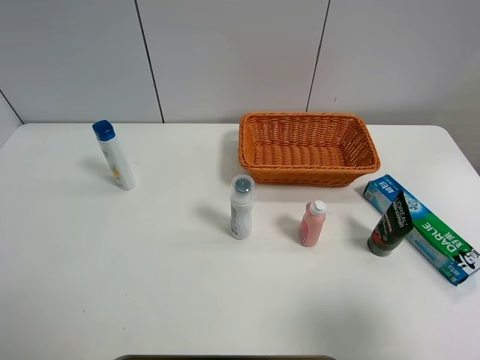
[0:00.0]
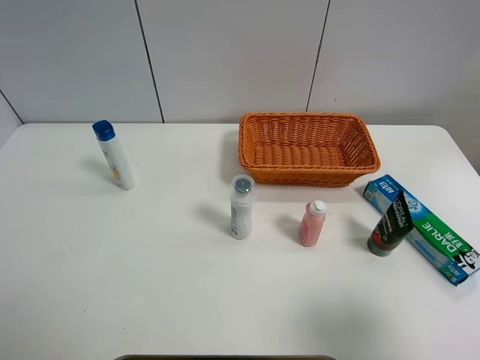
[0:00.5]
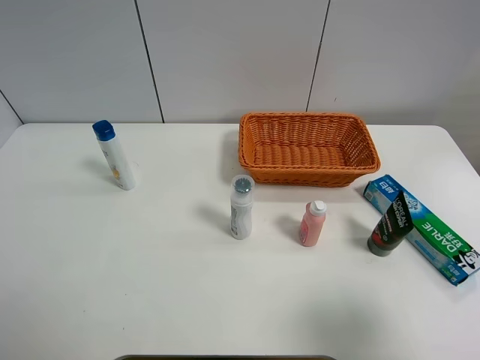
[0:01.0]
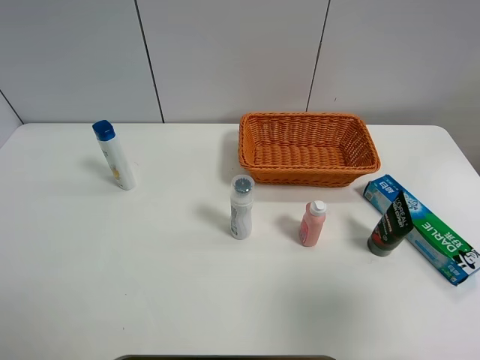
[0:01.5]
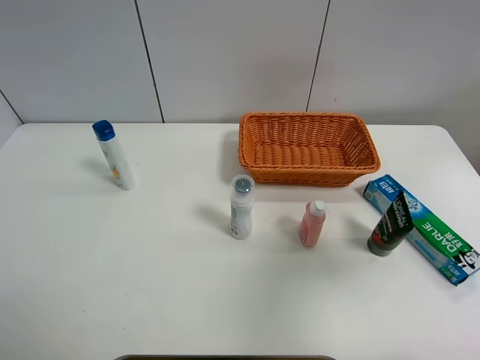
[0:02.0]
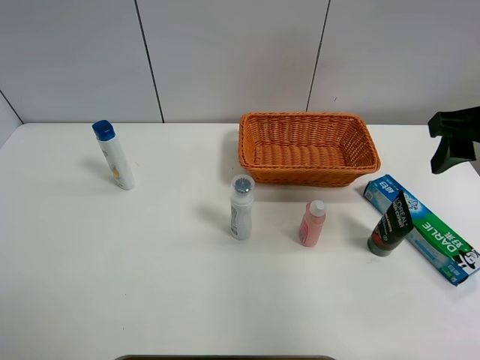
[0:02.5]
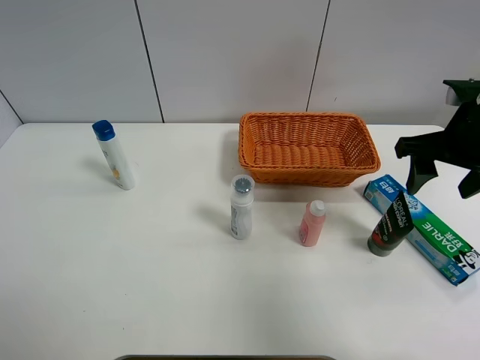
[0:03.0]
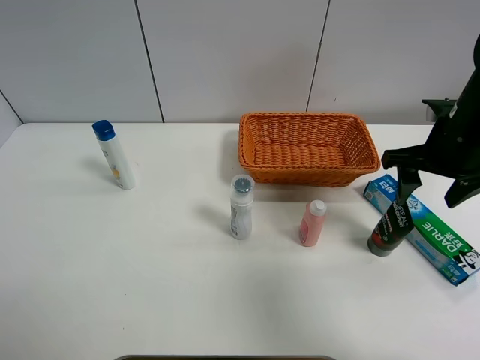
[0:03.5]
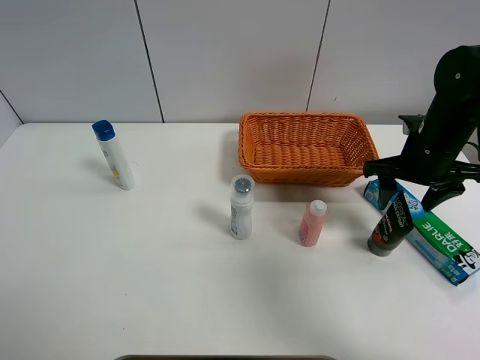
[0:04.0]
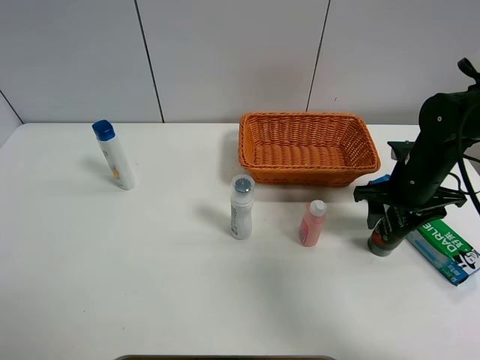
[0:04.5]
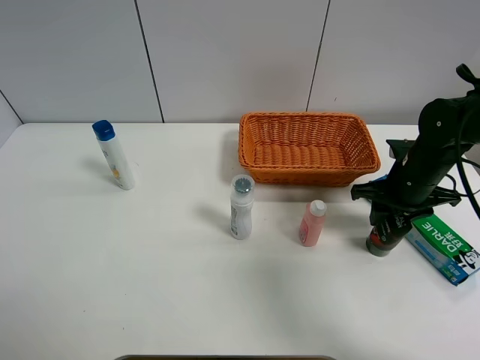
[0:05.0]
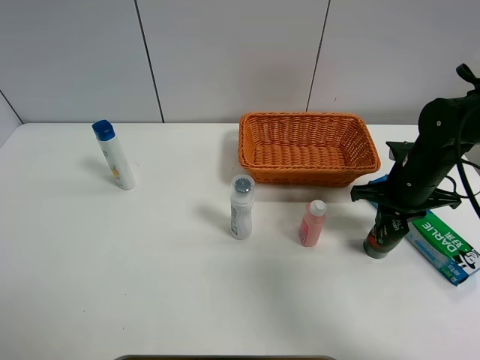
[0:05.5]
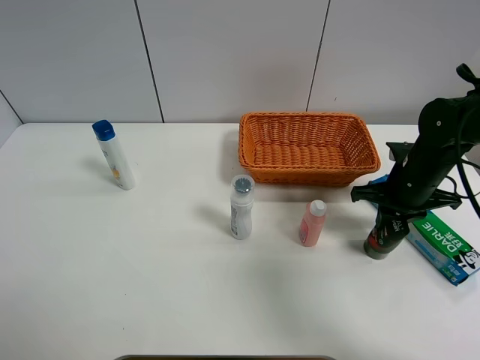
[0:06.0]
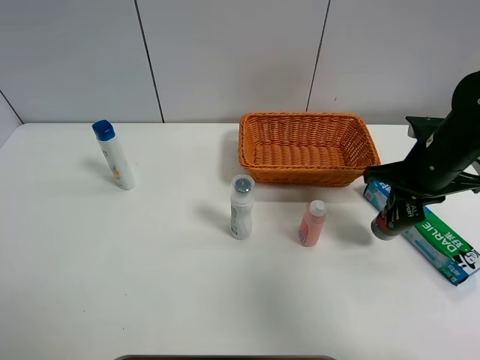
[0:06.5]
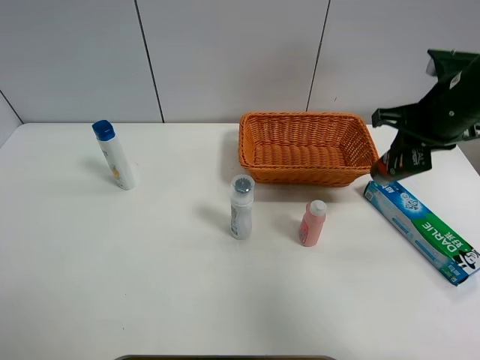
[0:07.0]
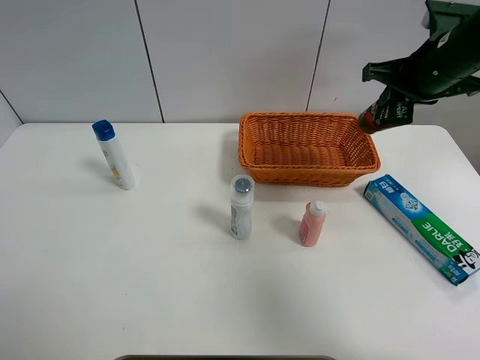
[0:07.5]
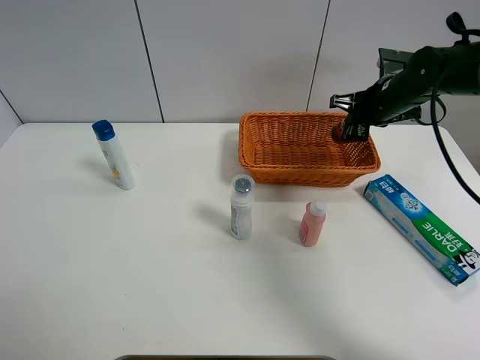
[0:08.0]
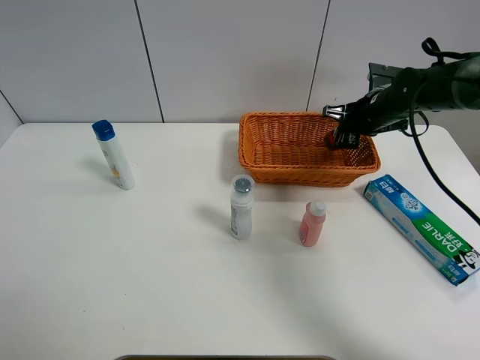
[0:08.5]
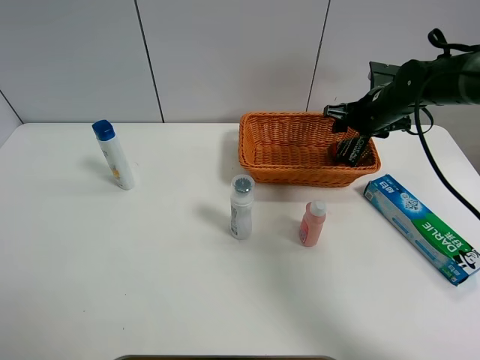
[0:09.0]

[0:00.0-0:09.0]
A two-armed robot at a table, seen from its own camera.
Task of the whole recording: Place the object closest to the toothpaste in the basket.
Step, 0:00.0 to 0:05.5: Grasp the soft facial cleanser with right gripper.
0:00.0 to 0:02.0: The right gripper goes approximately 15 cm forward and upward.
0:02.0 to 0:04.5: The right gripper moves downward and forward, about 25 cm.
0:04.5 to 0:07.0: The right gripper moves upward, about 15 cm, and closes.
0:07.0 to 0:09.0: The right gripper heads forward and downward, covering about 15 cm, and opens.

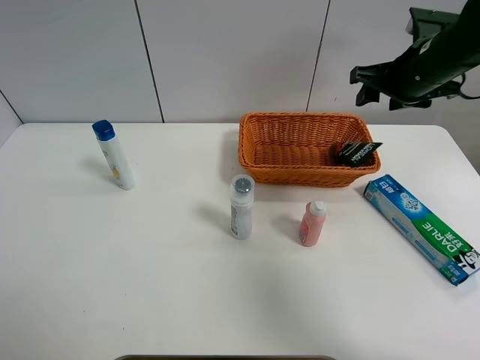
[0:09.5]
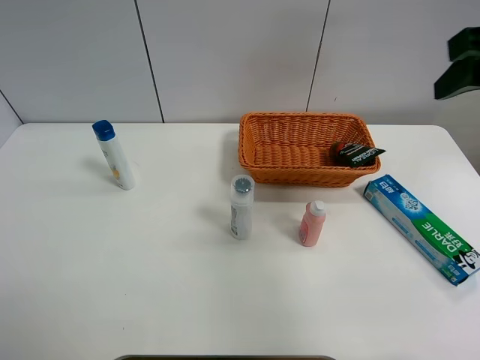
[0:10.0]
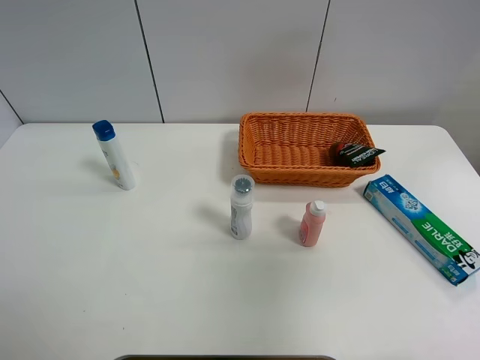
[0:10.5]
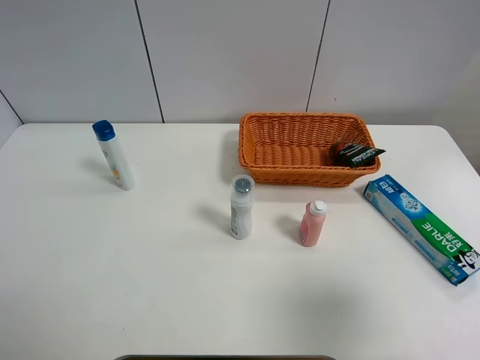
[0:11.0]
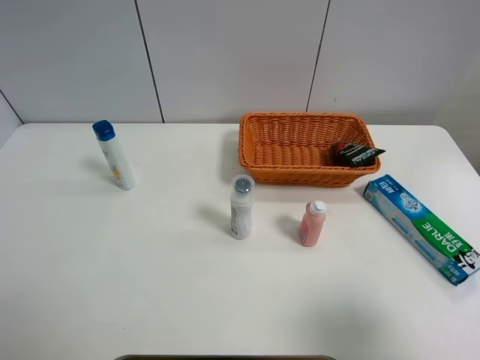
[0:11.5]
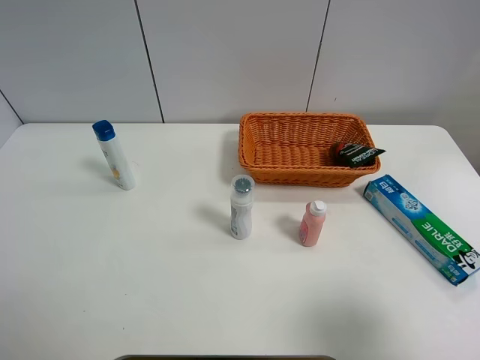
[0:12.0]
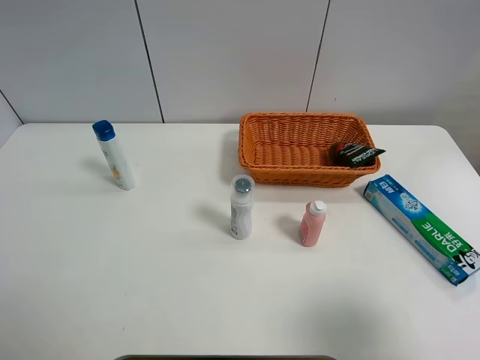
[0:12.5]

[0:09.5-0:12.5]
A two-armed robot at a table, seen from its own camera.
Task of the whole recording: Place the object closest to the toothpaste in the basket.
0:09.5 to 0:11.0: The right gripper is displaced backward by some 35 cm.
0:11.0 to 0:12.5: The grippers move only a little.

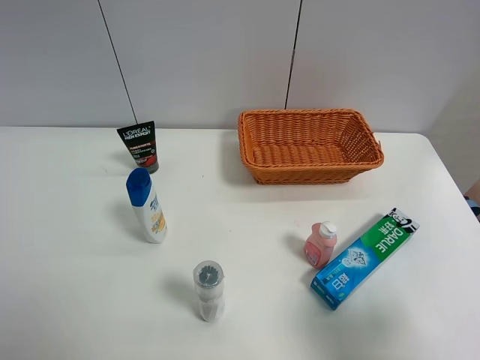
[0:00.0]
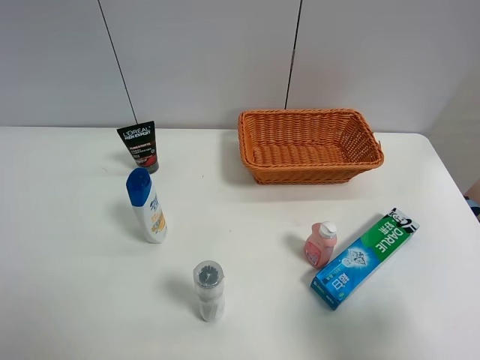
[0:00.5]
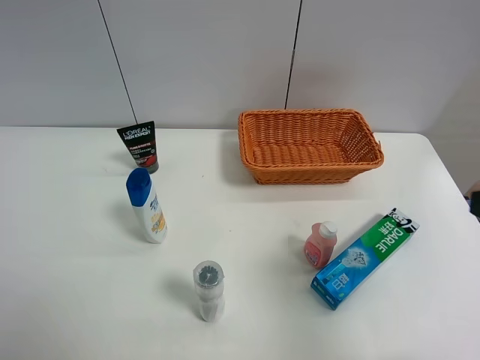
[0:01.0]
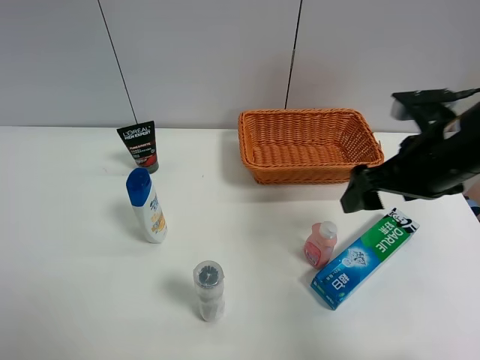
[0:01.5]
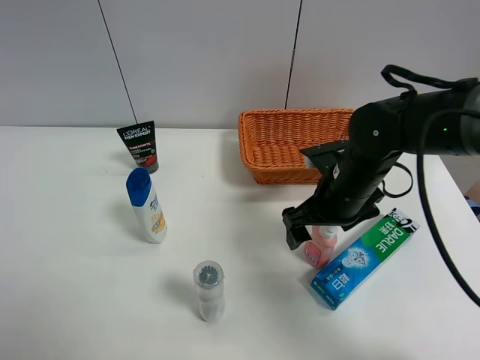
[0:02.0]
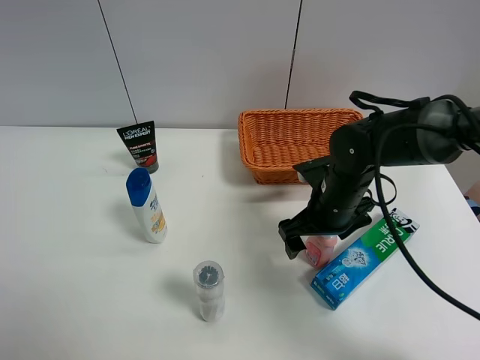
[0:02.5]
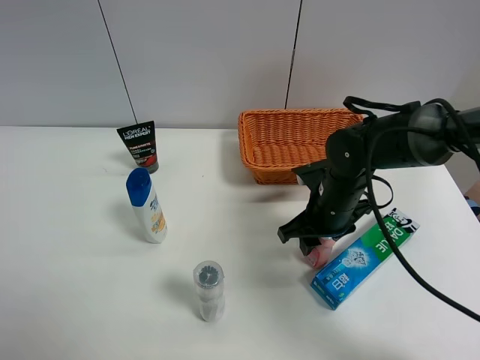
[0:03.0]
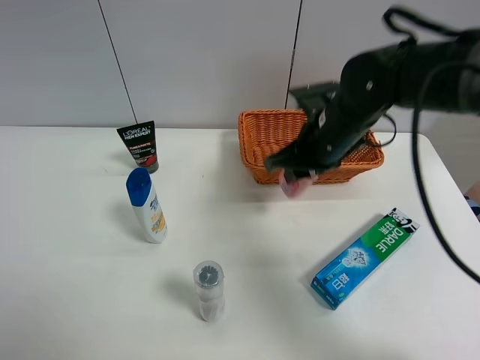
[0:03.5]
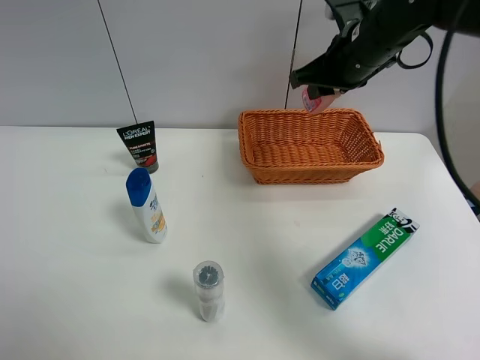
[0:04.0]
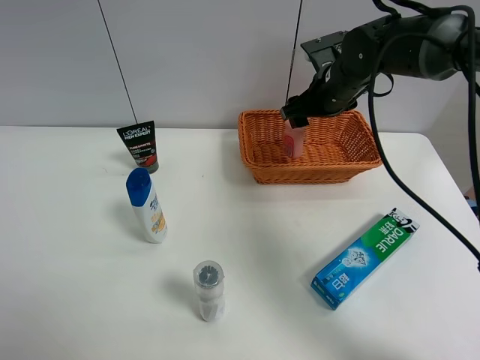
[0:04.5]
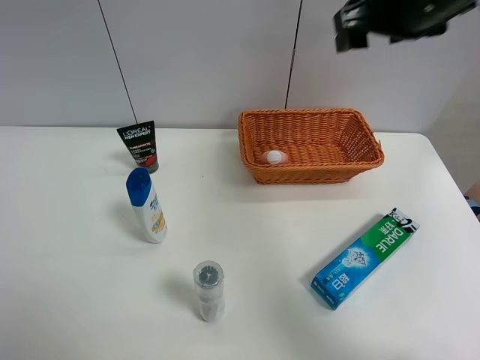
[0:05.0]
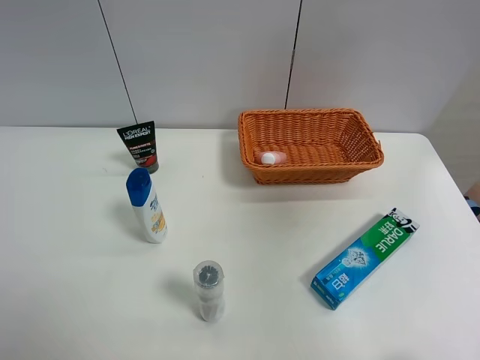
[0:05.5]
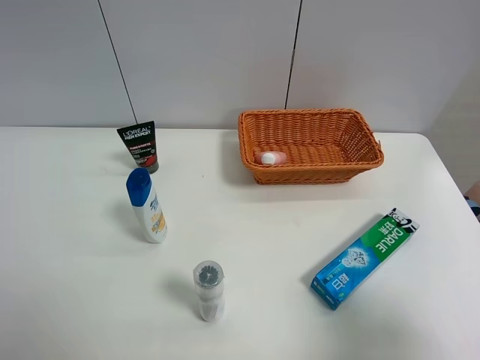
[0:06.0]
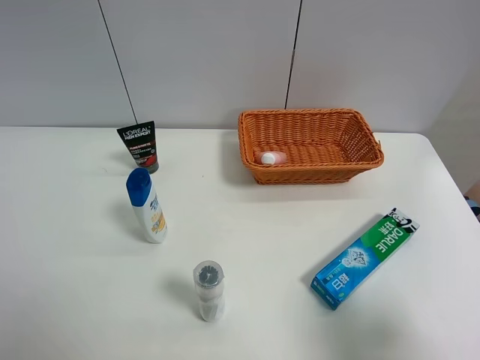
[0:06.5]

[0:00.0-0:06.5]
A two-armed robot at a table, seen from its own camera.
Task of the whole recording: Place the object closest to the toothpaste in the basket.
Step, 0:00.0 to 0:03.0: Grasp the pink laundry detergent with right gripper.
Step, 0:03.5 to 0:04.5: Place the pink laundry detergent in the basket with right gripper.
0:00.0 to 0:02.0: The right gripper is displaced forward and to the left by about 30 cm.
0:02.0 to 0:04.5: The right gripper moves up and down over roughly 15 cm, changing direction 2 times, and closes up.
0:04.5 to 0:06.5: The right gripper is displaced backward by some 40 cm.
